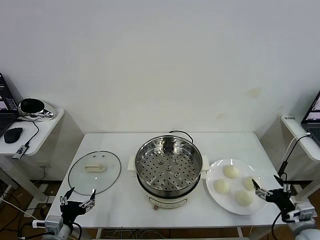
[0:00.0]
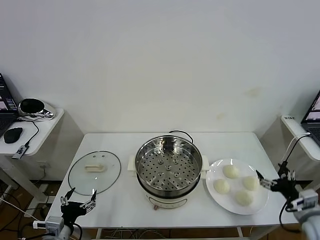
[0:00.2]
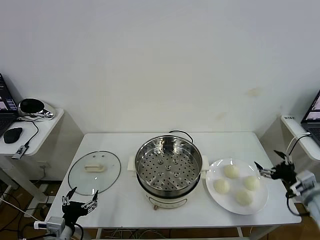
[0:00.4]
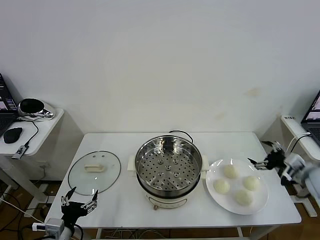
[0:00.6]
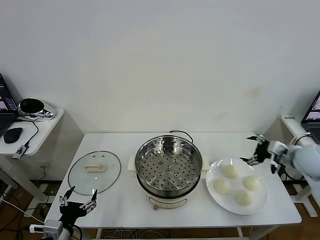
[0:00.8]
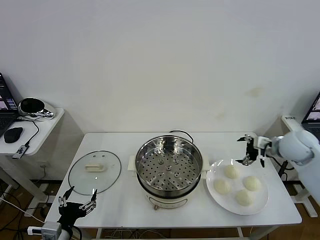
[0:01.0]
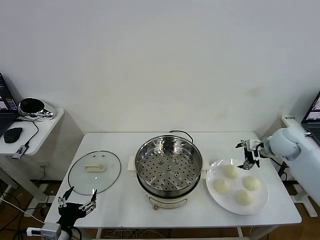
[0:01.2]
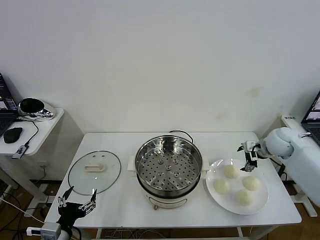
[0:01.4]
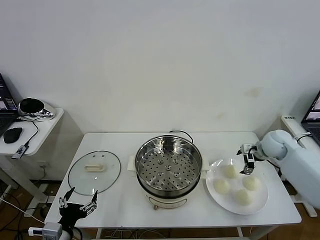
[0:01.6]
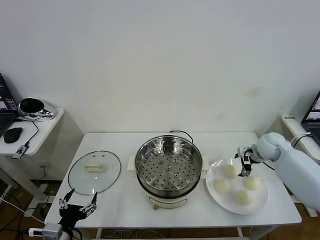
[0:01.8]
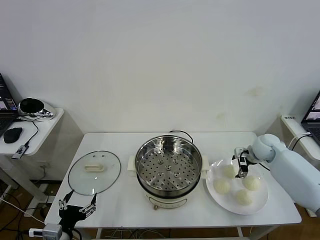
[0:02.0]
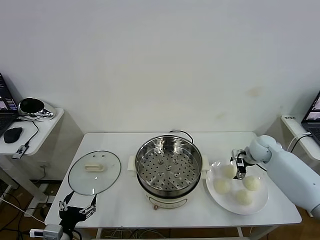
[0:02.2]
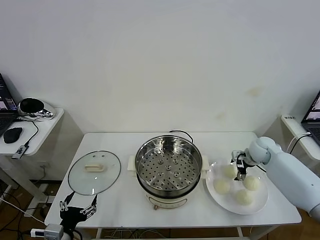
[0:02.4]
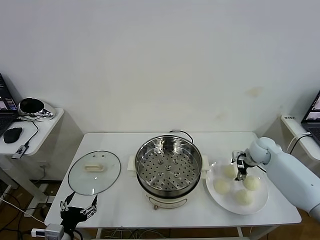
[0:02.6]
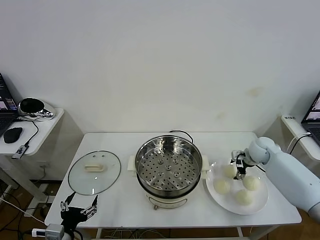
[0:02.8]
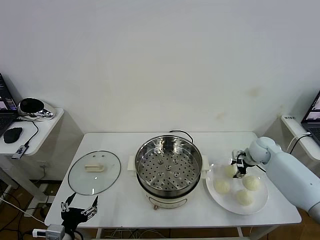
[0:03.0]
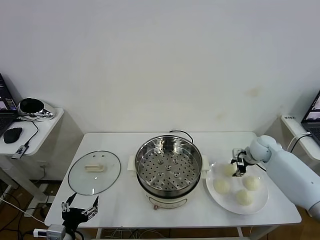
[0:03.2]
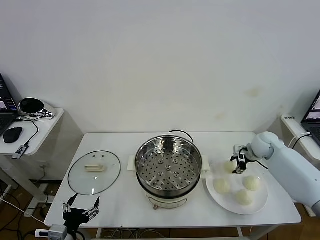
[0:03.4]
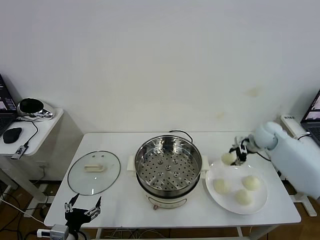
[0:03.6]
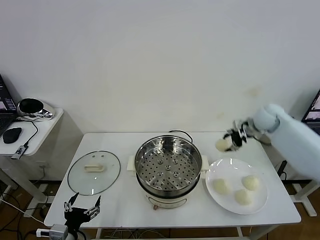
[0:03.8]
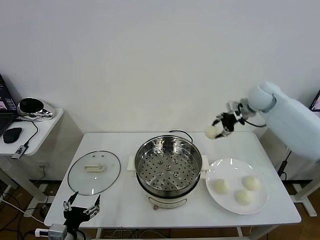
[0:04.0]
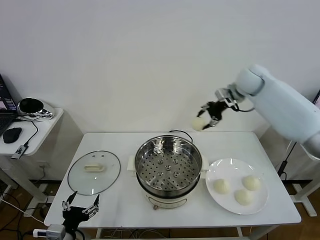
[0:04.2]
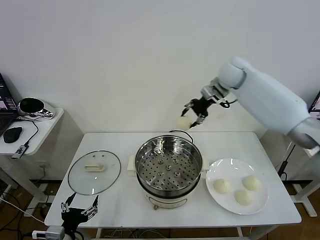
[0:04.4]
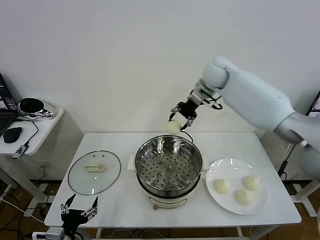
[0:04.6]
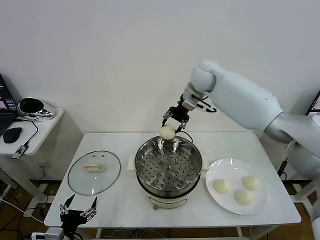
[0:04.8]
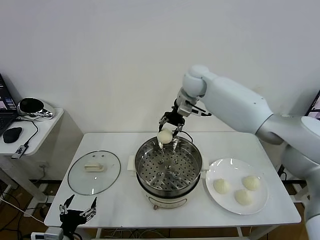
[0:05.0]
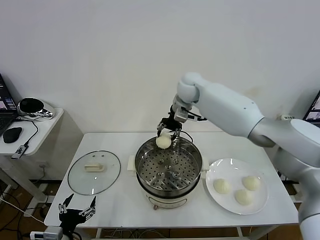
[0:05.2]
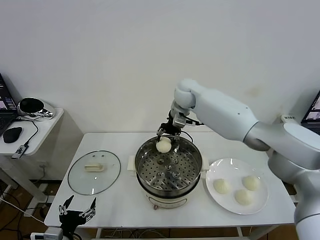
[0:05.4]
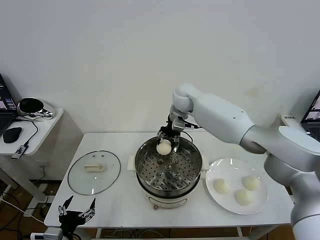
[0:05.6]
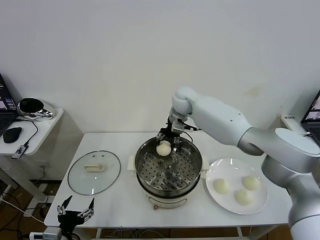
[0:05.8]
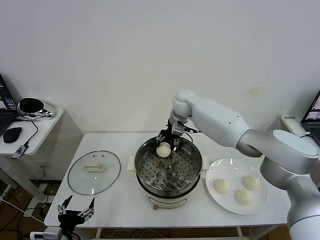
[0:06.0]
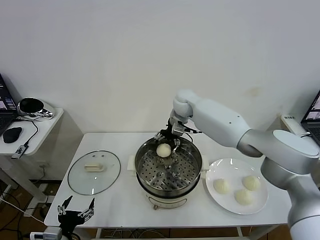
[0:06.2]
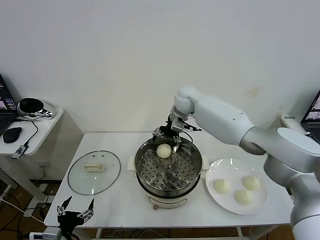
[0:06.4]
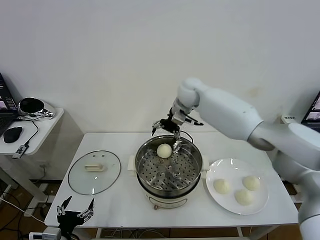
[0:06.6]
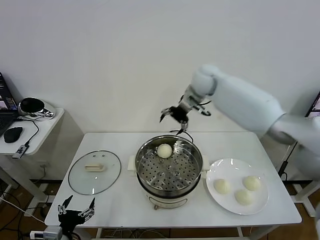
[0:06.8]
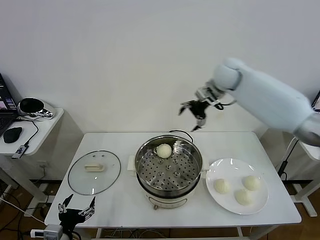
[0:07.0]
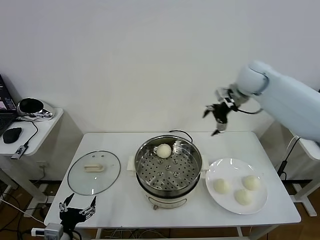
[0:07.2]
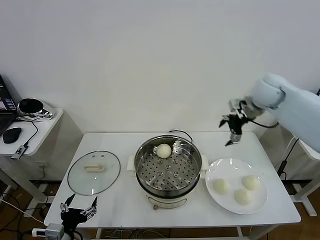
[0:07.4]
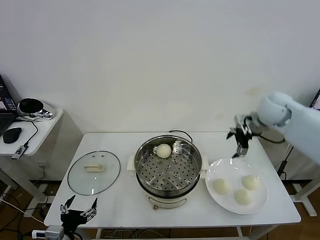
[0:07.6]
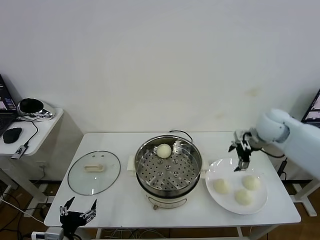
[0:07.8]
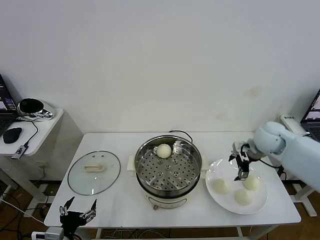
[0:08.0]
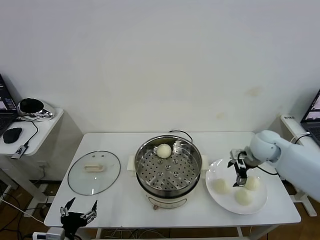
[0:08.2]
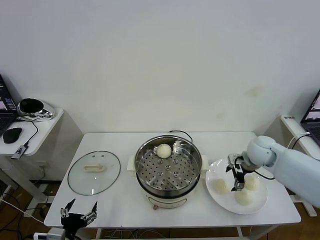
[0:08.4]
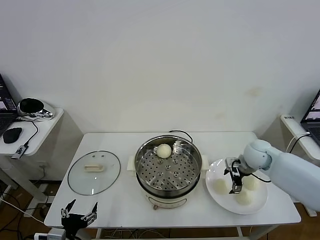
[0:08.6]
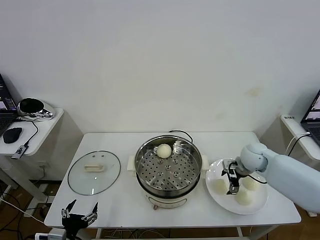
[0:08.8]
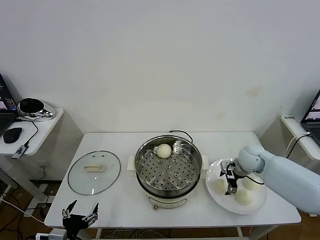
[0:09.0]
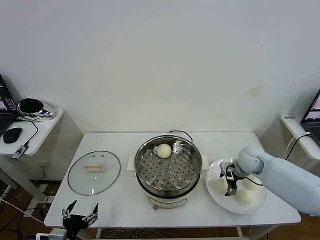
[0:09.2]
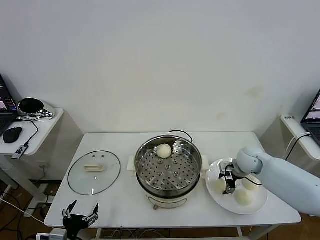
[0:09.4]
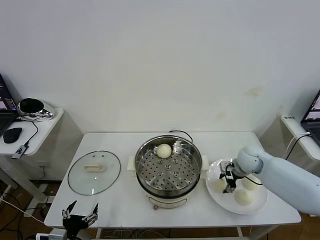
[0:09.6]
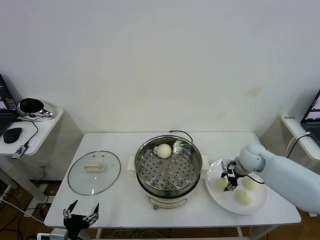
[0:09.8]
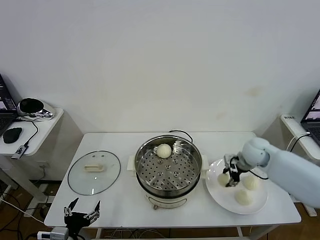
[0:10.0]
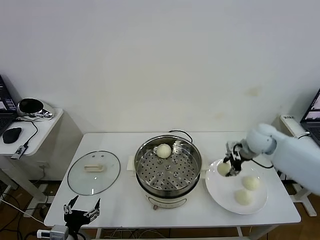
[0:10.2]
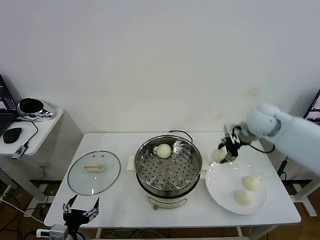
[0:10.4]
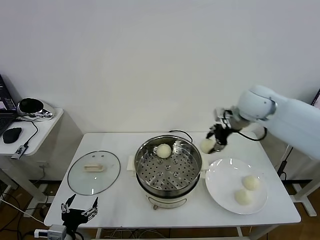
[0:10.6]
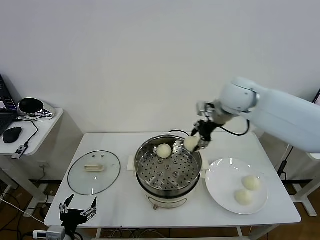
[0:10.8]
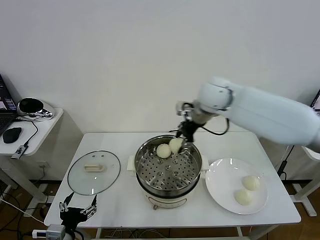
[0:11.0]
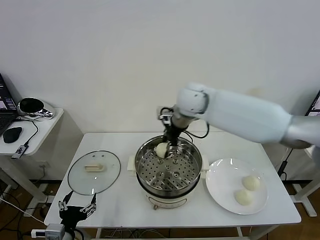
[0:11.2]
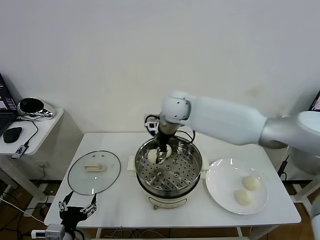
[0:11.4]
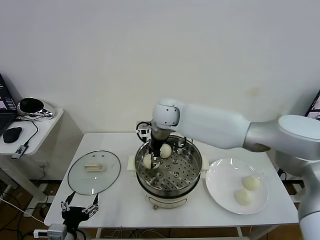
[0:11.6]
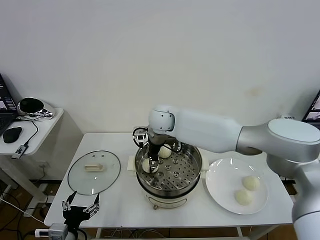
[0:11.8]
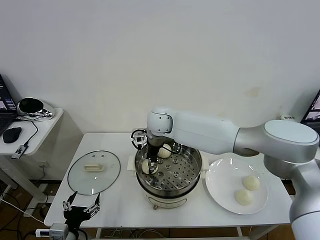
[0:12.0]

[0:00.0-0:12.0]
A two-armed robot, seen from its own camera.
Task of the whole recording: take steamed baozi put them in steamer then cover it.
Step, 0.0 to 3.0 s: Grasp the baozi in the plate with right gripper.
Step, 3.2 to 6.2 s: Place the baozi on the steamer with right gripper.
Step, 6.6 to 9.4 s: Grasp the baozi in the plate with right gripper.
1.6 to 3.0 s: The right gripper closes.
3.0 to 4.4 s: The right gripper heads upward, to the left and forward, covering some 35 cm.
4.4 to 6.0 s: The right gripper travels downward and to the left by some 15 cm.
6.0 to 7.6 s: The right gripper travels to the right and backward by roughly 30 cm, and opens its fingers.
7.6 to 9.0 s: The right gripper travels downward by about 15 cm.
9.0 to 10.4 s: The right gripper travels upward by about 20 cm, and closes.
10.4 to 12.0 s: The right gripper travels to the left by some 30 cm, and opens up.

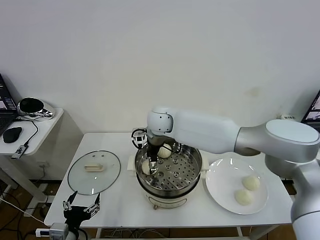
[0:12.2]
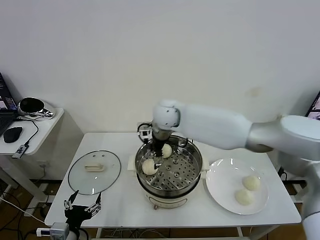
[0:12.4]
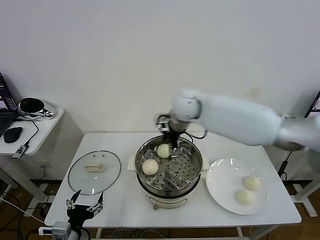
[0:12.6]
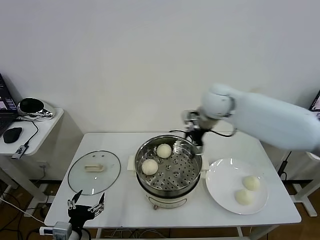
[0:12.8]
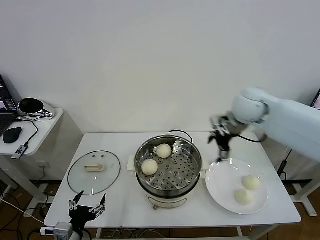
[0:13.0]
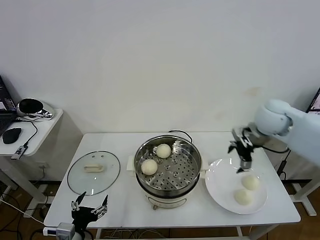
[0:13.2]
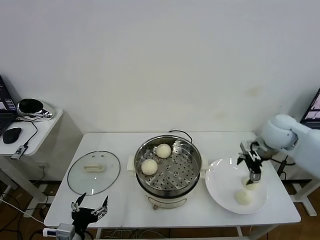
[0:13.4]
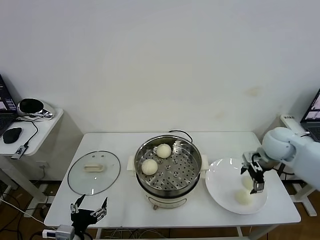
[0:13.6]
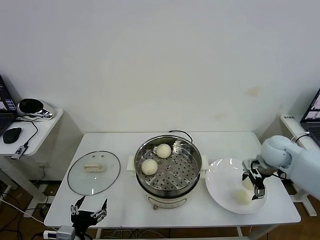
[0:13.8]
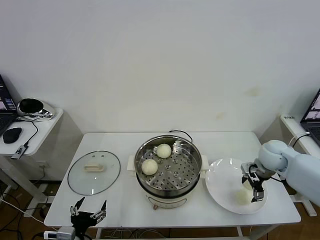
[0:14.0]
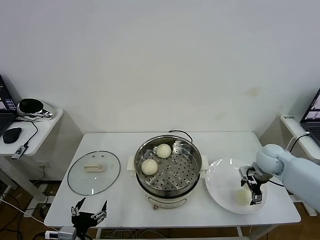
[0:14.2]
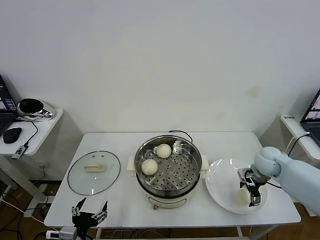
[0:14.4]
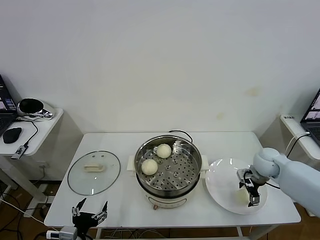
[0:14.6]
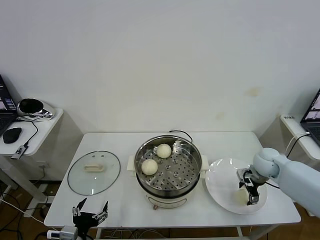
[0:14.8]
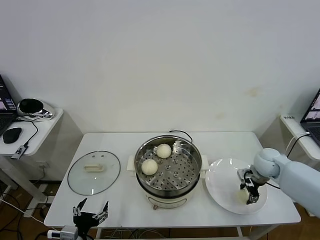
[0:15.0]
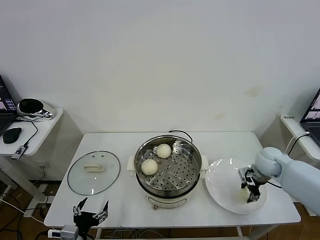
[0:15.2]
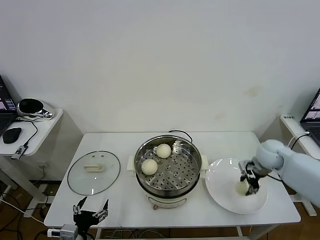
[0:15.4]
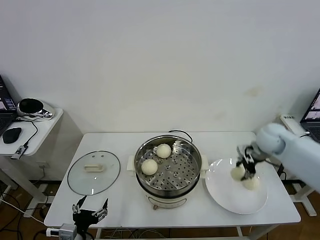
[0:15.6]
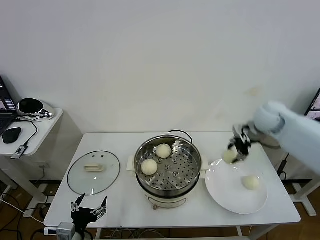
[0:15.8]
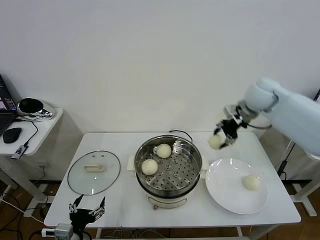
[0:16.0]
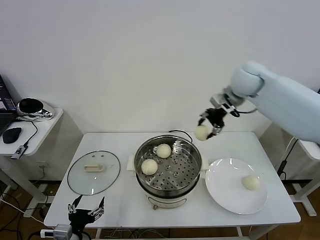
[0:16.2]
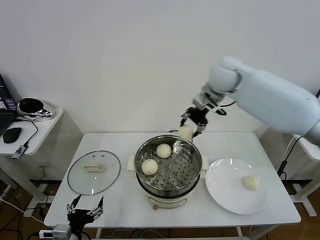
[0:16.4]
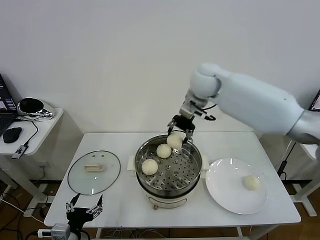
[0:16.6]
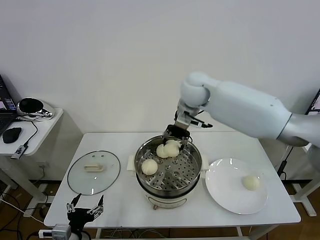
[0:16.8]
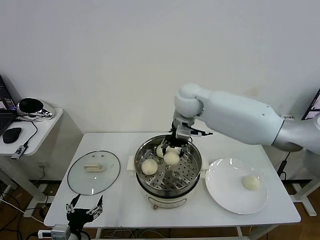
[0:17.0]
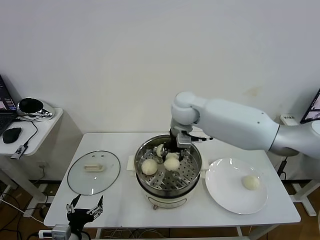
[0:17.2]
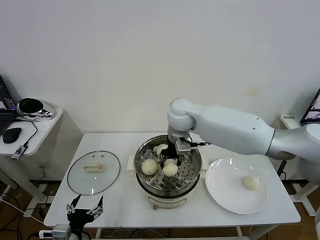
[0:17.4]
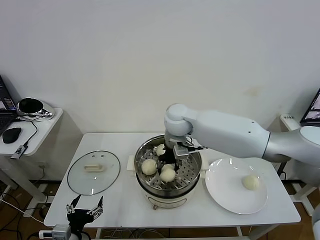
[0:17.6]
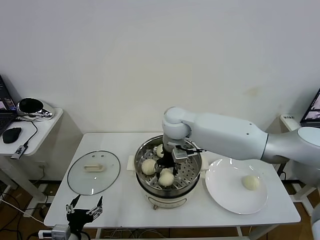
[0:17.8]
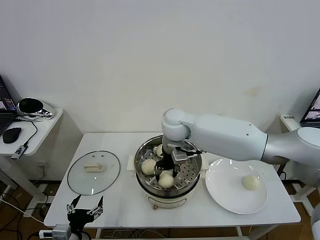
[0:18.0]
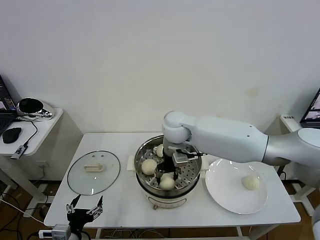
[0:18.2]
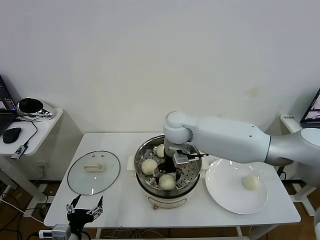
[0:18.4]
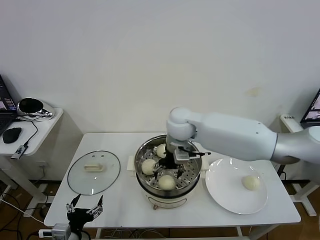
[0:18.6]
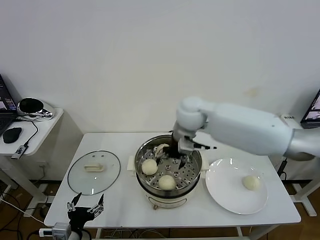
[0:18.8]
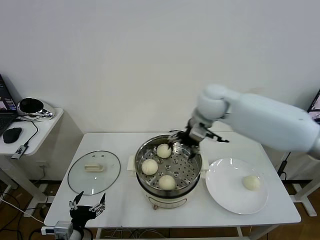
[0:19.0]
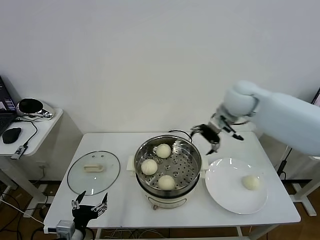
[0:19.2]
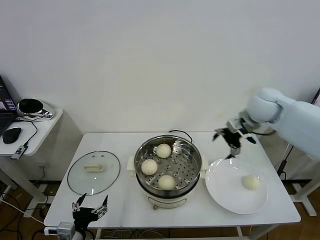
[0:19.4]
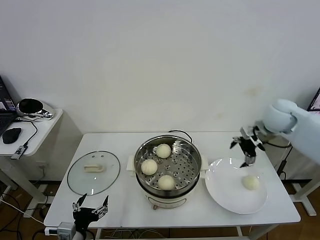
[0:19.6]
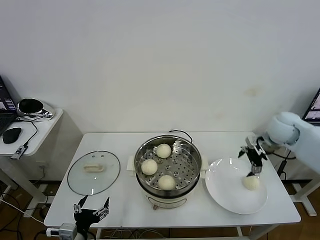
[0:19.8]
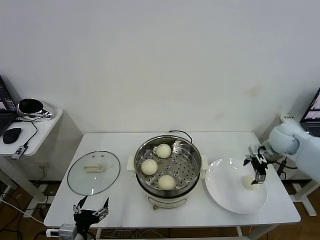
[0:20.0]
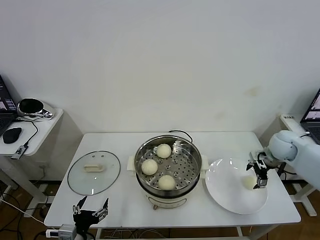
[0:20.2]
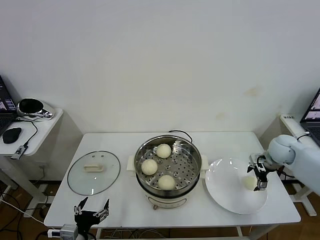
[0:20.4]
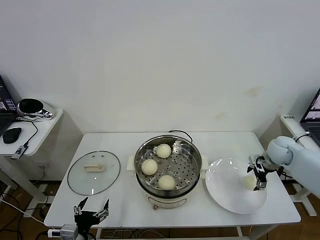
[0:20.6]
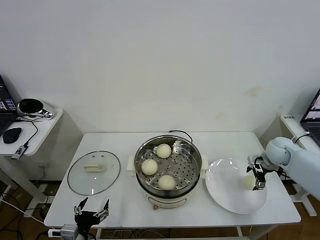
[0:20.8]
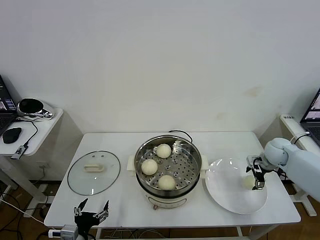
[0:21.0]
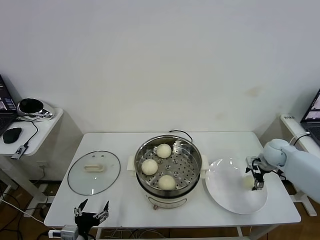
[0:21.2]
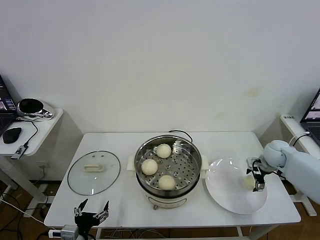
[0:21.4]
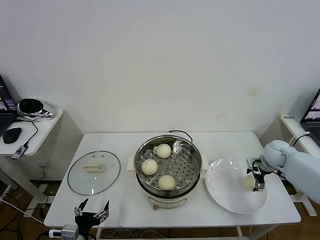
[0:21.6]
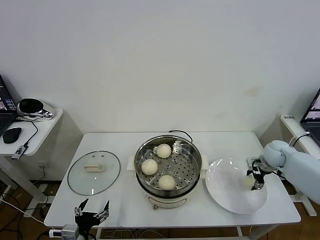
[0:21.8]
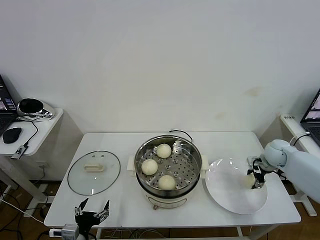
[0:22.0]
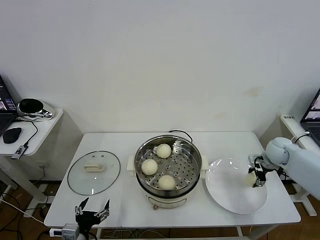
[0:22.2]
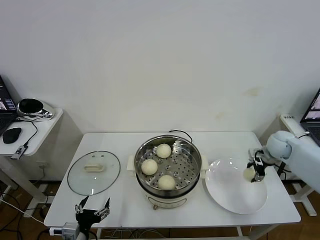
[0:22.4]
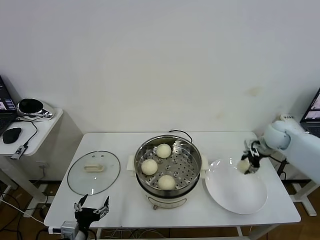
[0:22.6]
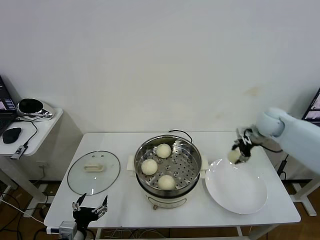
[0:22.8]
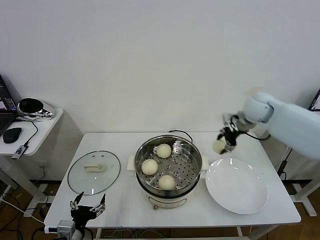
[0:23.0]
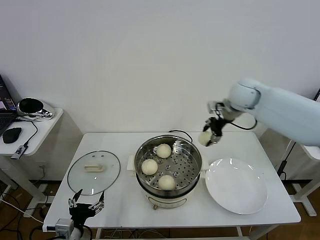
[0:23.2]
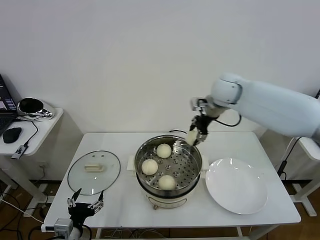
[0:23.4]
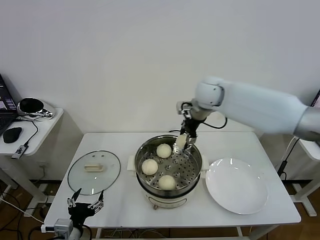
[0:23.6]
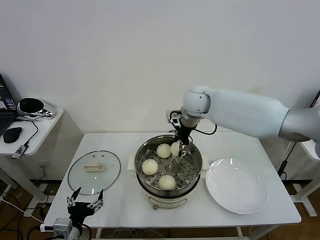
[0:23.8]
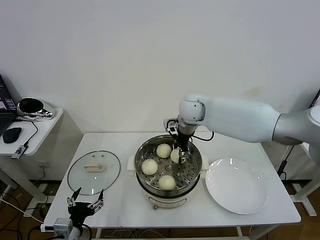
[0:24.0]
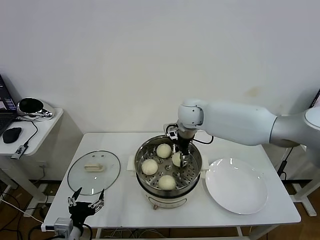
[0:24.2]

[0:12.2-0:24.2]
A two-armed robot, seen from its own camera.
Task of the whole recording: take steamed baozi put them in steamer then cover it.
Step, 12.6 to 15.0 s: Grasp the baozi in the plate with right gripper.
Step, 15.2 to 18.6 s: Place the baozi on the steamer with right gripper.
Step, 18.8 to 21.8 s: Grasp the baozi in the plate with right gripper.
12.2 to 13.8 s: The right gripper shifts approximately 40 cm to the right.
13.8 to 15.2 s: The right gripper closes up.
15.2 to 16.6 s: The right gripper goes about 35 cm to the left, upward and forward.
16.6 to 18.2 s: The right gripper heads downward, to the left and backward, covering some 15 cm.
18.2 to 19.8 s: The right gripper shifts approximately 35 cm to the right, and opens up.
19.8 to 21.2 s: The right gripper is displaced downward by about 10 cm.
21.2 to 22.6 s: The right gripper moves upward, about 10 cm, and closes up.
22.6 to 24.2 s: The right gripper moves to the left, approximately 30 cm.
